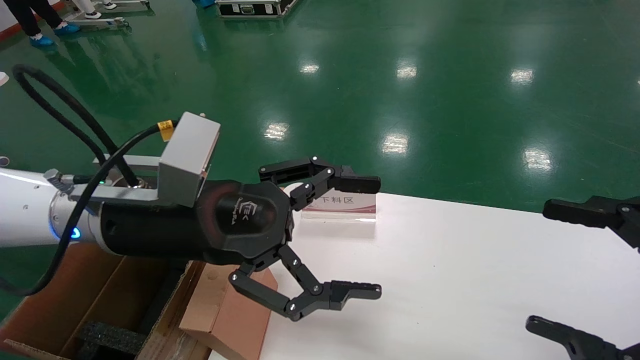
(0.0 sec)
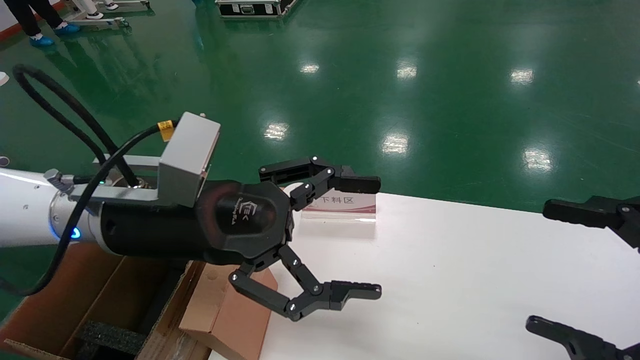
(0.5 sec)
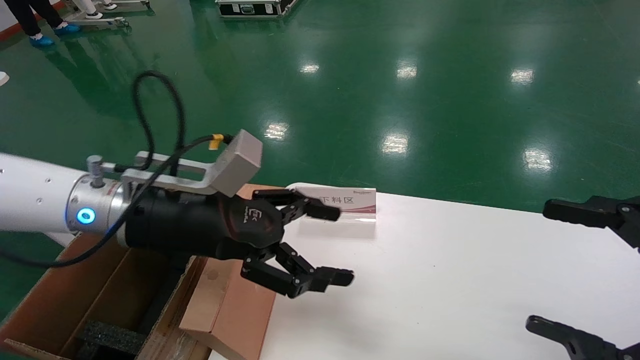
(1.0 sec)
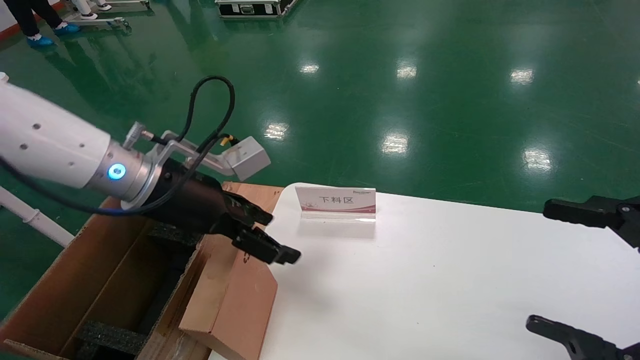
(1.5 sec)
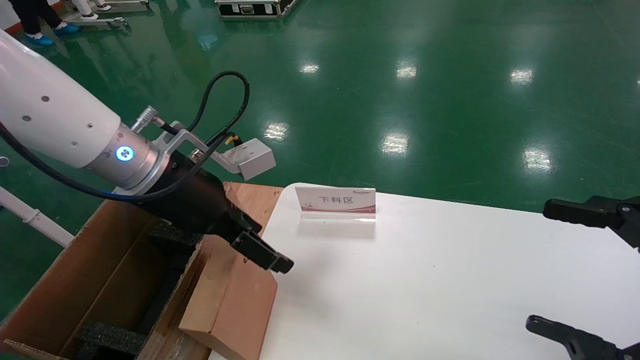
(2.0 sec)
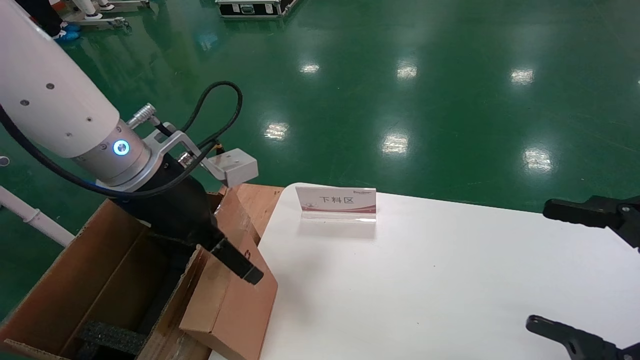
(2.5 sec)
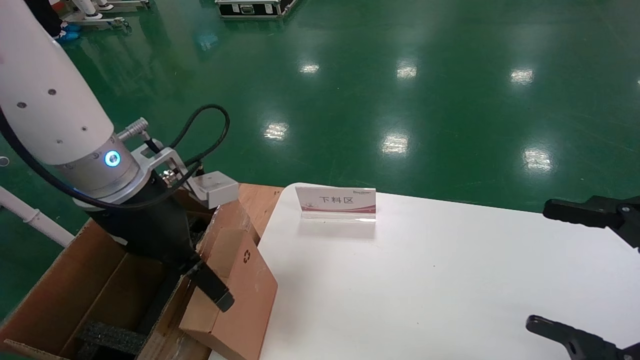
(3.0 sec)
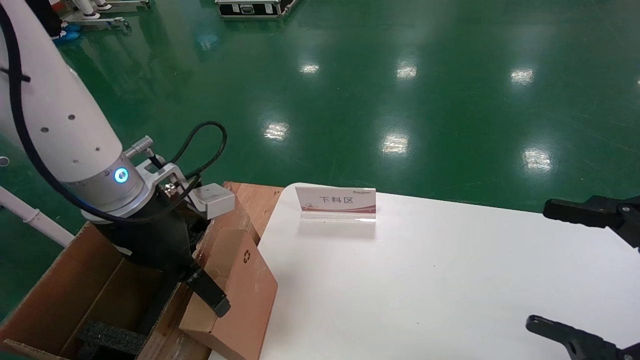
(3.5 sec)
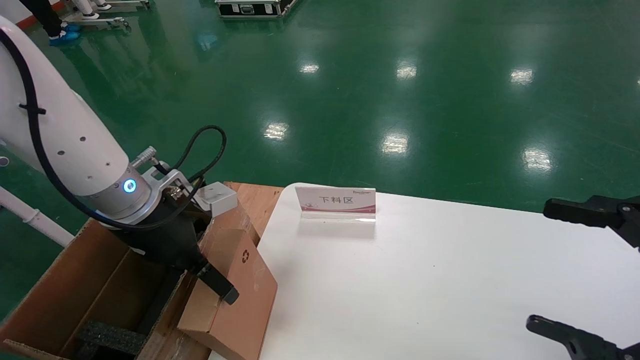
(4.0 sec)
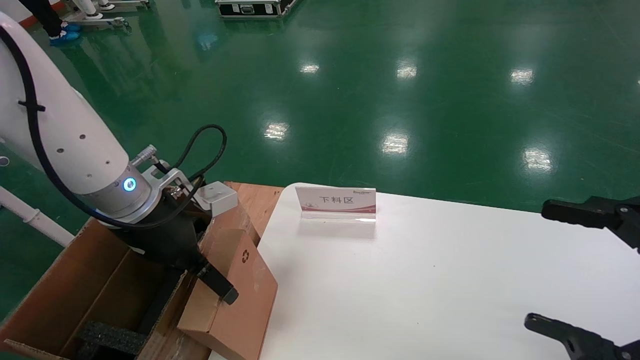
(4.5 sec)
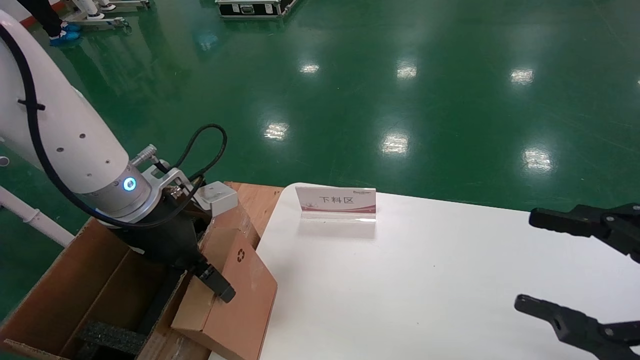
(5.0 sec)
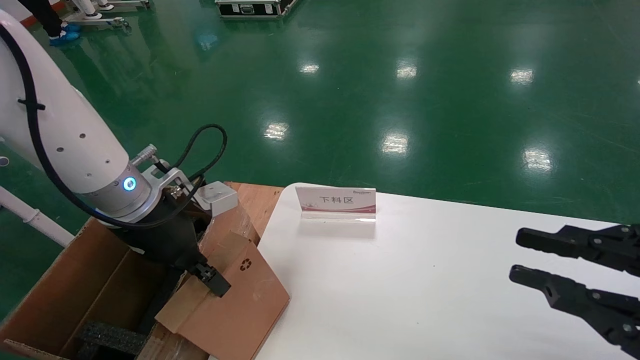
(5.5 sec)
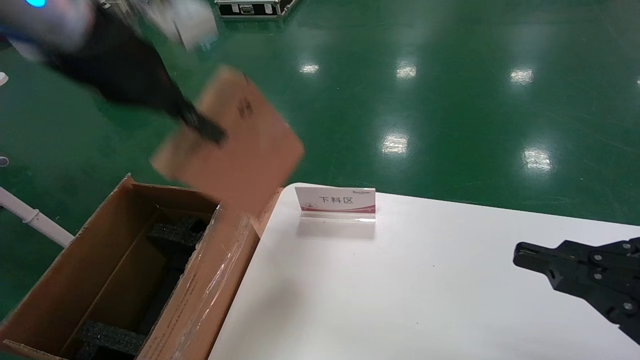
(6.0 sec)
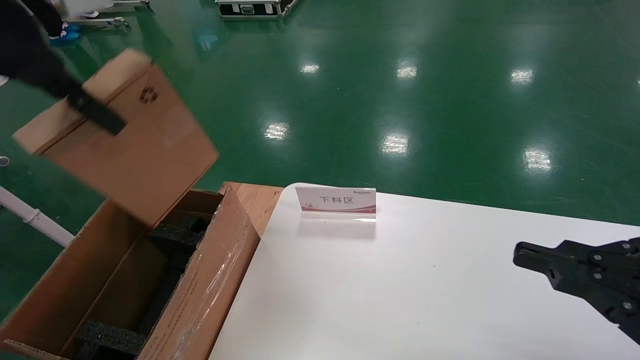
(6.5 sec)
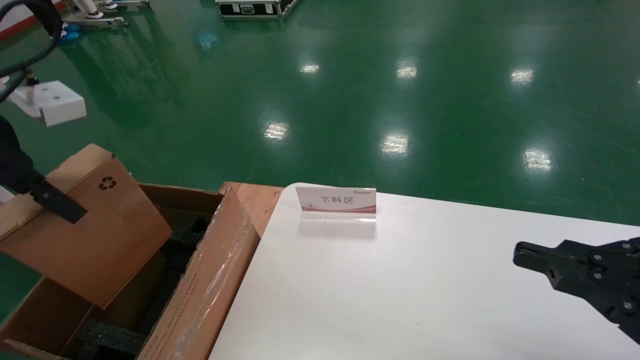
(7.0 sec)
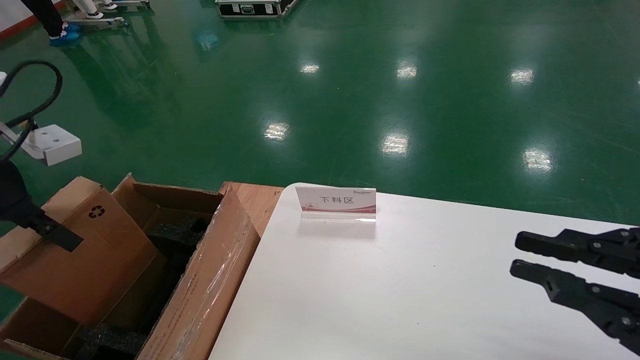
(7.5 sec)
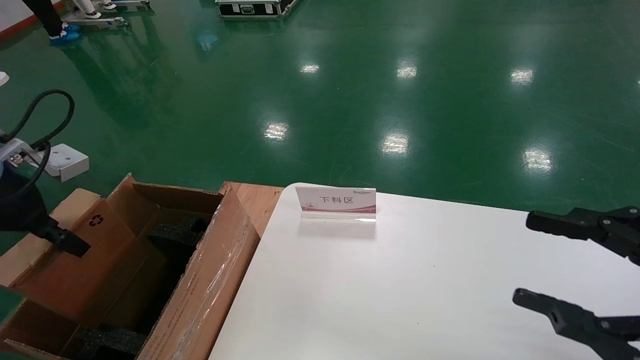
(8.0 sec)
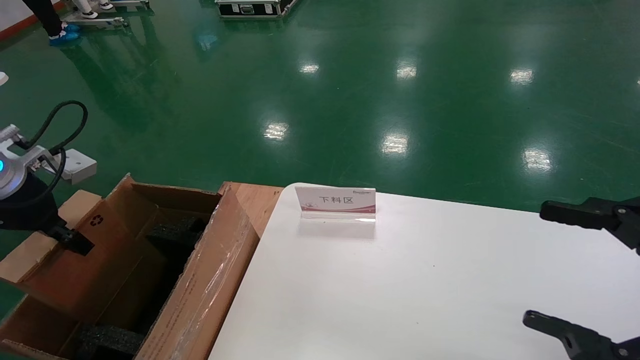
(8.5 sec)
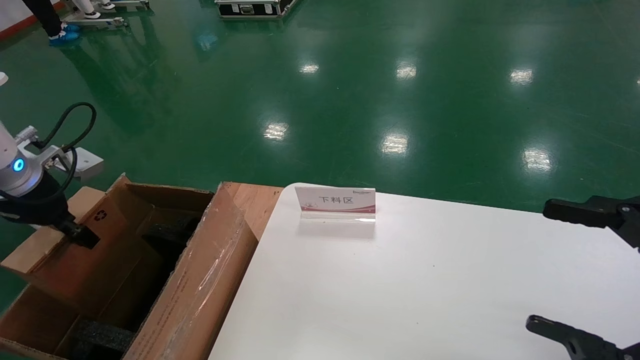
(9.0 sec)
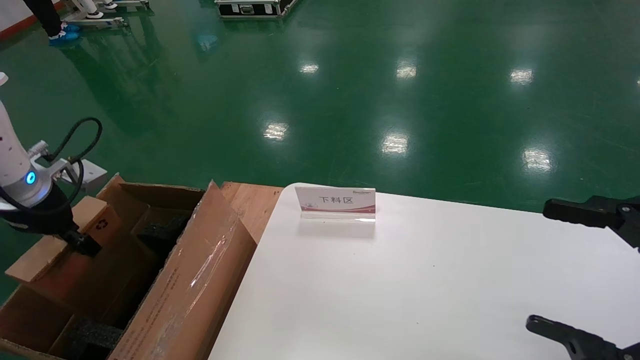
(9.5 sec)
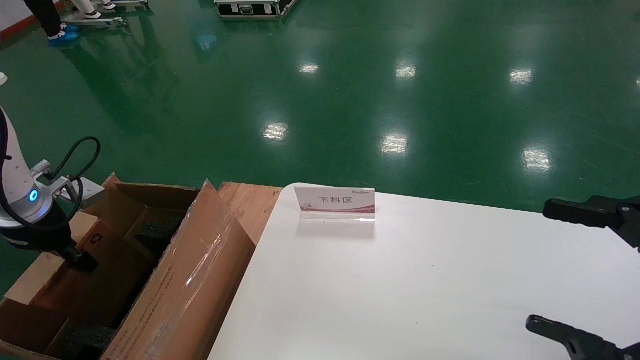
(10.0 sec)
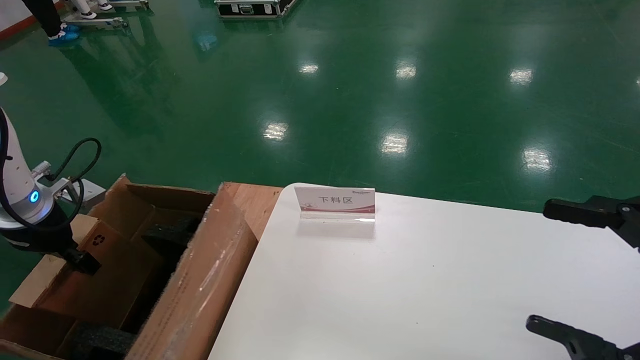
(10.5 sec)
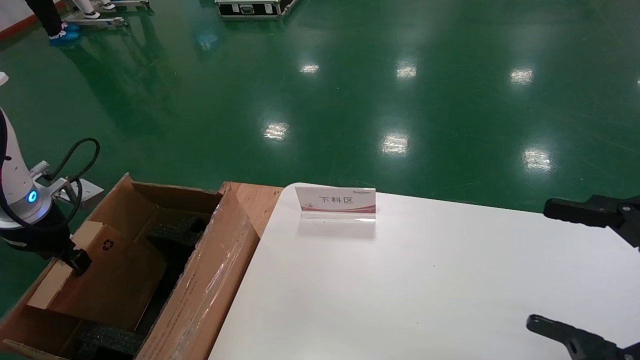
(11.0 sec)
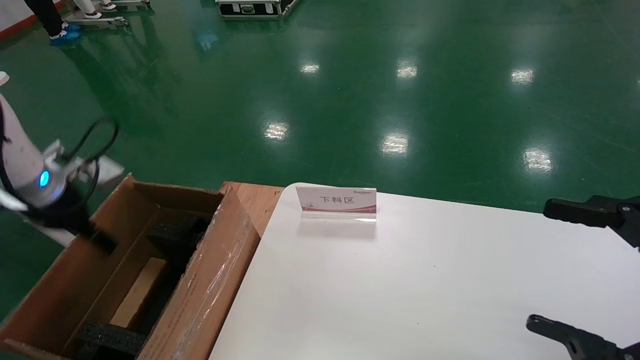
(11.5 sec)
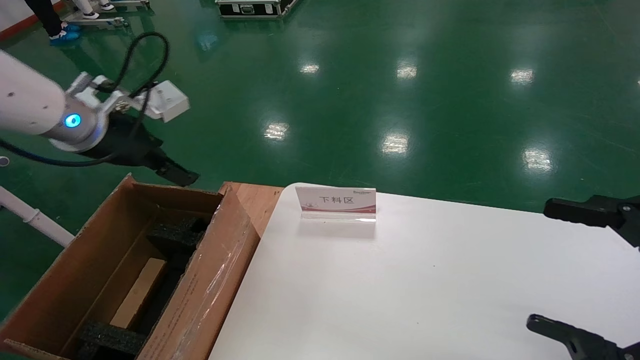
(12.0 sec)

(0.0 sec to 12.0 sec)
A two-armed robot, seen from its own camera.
Task of the whole recording: pick up the small cardboard box and load it into the large cardboard box.
Step, 1.0 sec - 5.5 sec: Pick up the mouse and power cord box.
Step, 6.0 sec - 12.0 sec: Place the mouse and power cord box into the case.
0.0 sec - 2.0 sec: The left gripper goes approximately 5 cm forward.
2.0 sec - 4.0 sec: The left gripper moves roughly 5 cm.
4.0 sec - 6.0 sec: The right gripper closes its fingers. Meanwhile the left gripper moves upward, about 20 cm, and closes.
6.0 sec - 8.0 sec: The right gripper opens. The left gripper shifts approximately 20 cm to the left and downward.
8.0 sec - 10.0 sec: The left gripper moves downward and forward, some 10 cm. The right gripper opens.
10.0 sec - 12.0 sec: The left gripper is displaced to the right and upward by approximately 15 cm, and opens its fingers.

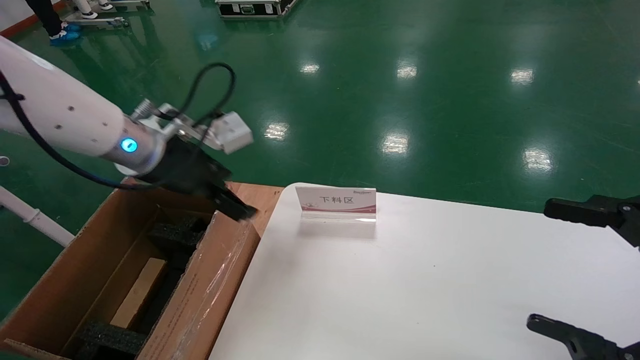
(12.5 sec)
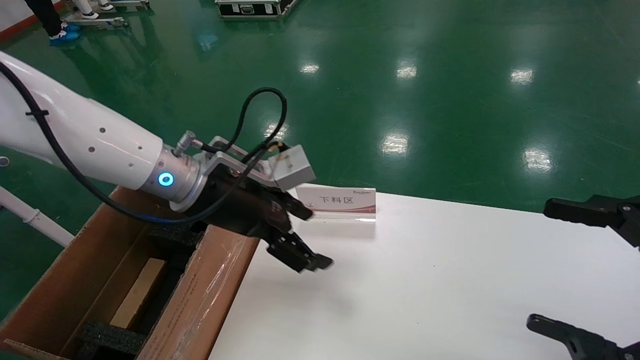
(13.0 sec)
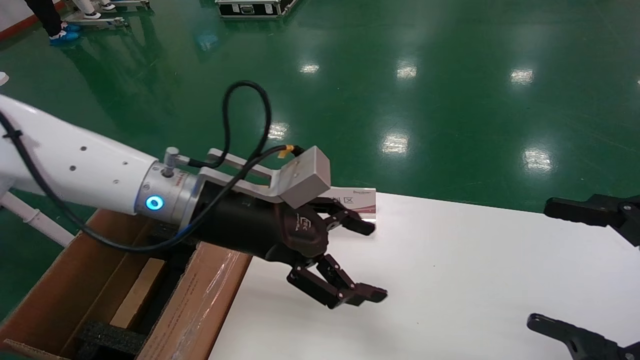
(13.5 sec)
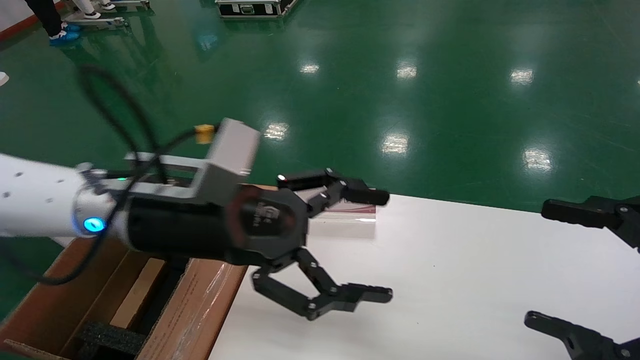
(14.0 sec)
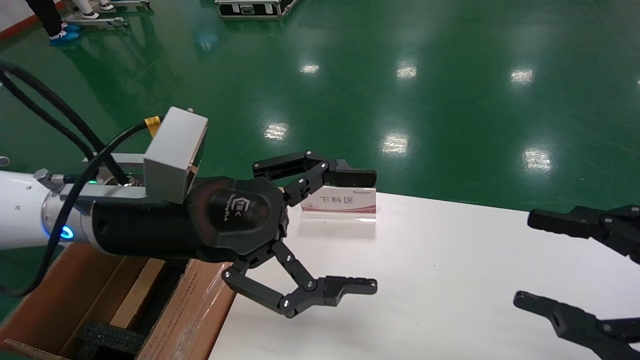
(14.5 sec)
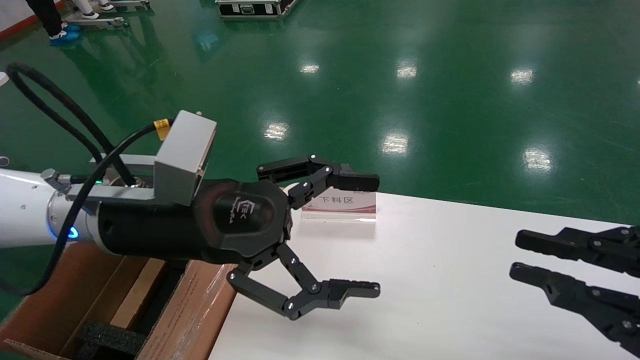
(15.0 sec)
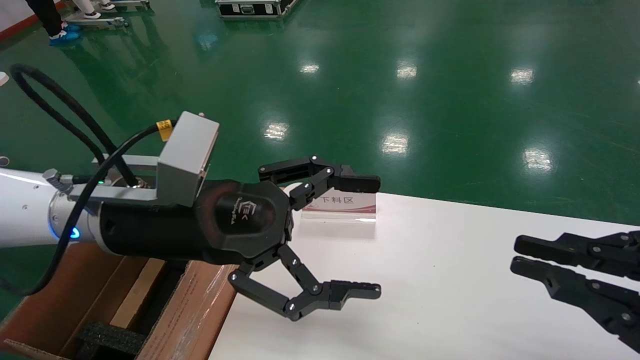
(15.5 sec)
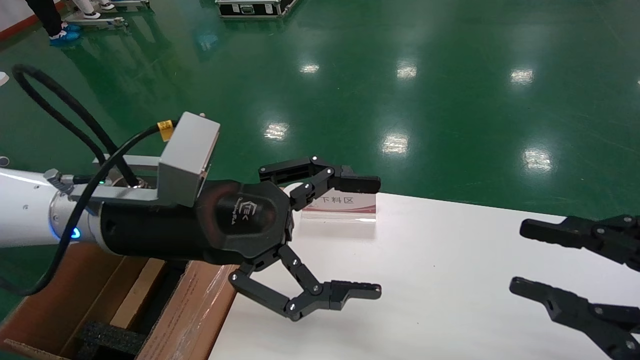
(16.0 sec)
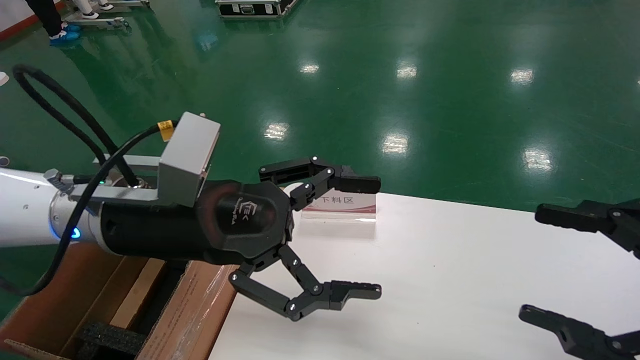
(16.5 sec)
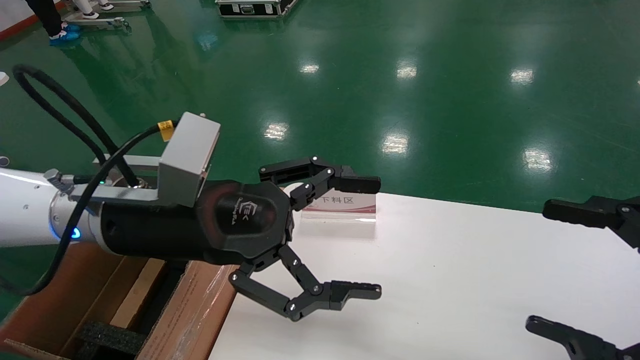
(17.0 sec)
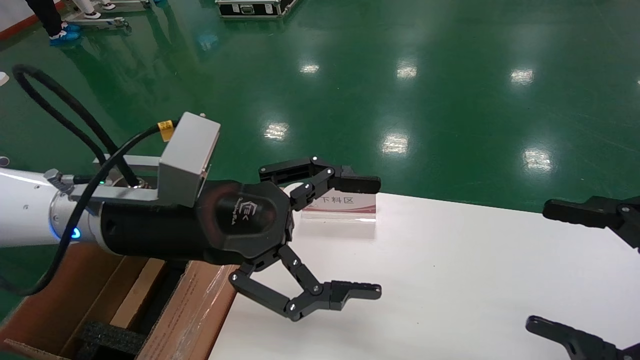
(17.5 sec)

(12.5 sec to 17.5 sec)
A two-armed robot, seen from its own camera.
Task of the whole recording: pick up the small cardboard box and load it into the large cardboard box.
12.5 sec - 15.0 sec: The left gripper moves backward and to the right, about 10 cm. Meanwhile the right gripper closes its fingers.
15.0 sec - 17.5 sec: The right gripper opens up.
